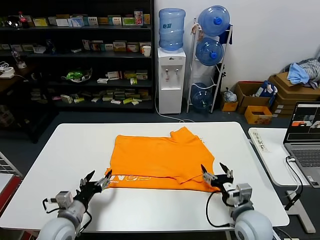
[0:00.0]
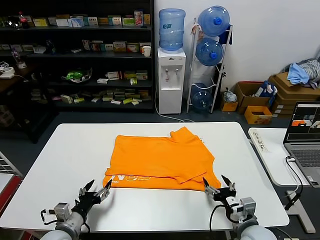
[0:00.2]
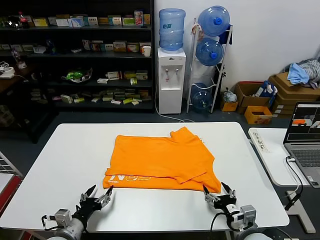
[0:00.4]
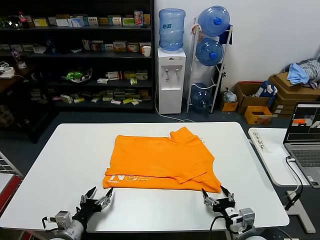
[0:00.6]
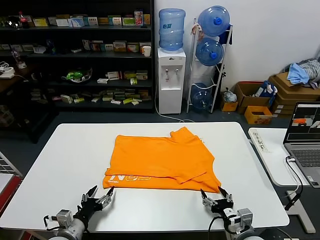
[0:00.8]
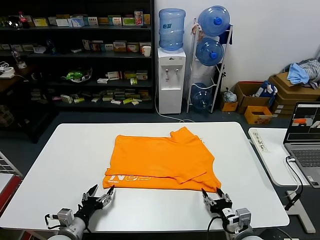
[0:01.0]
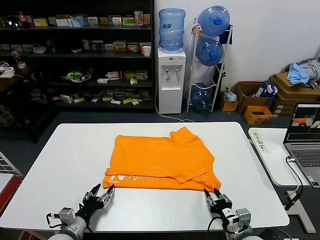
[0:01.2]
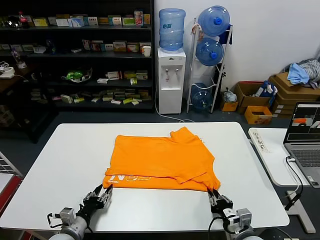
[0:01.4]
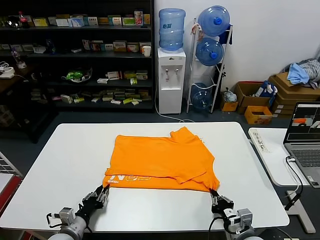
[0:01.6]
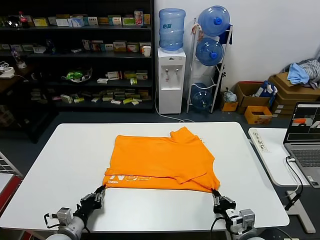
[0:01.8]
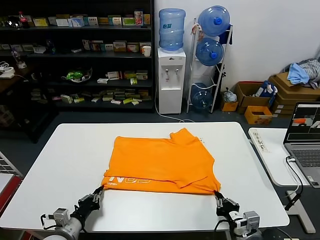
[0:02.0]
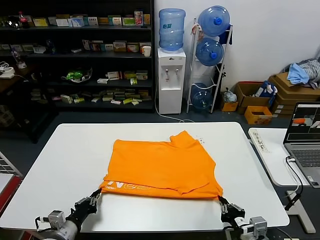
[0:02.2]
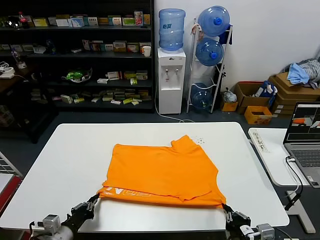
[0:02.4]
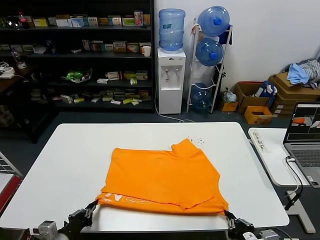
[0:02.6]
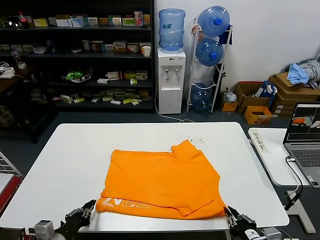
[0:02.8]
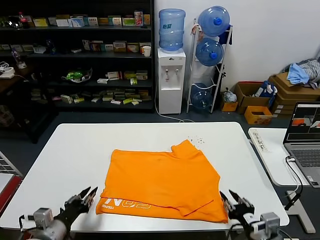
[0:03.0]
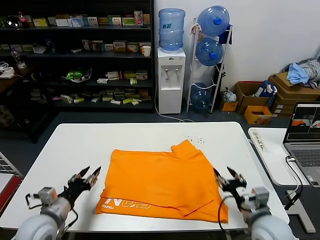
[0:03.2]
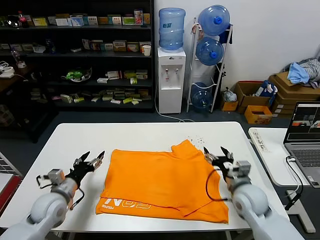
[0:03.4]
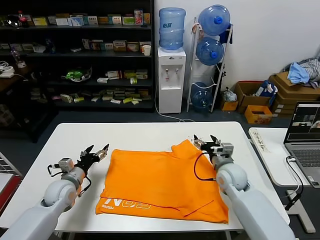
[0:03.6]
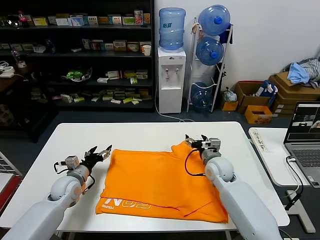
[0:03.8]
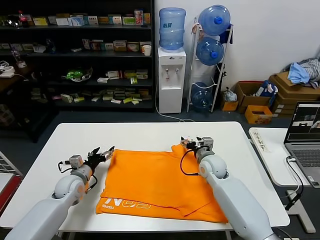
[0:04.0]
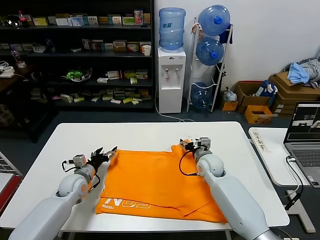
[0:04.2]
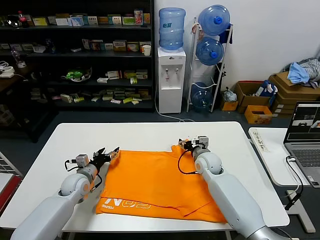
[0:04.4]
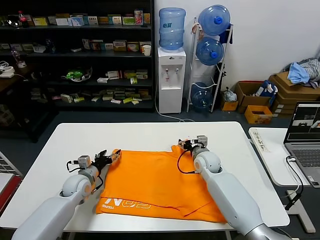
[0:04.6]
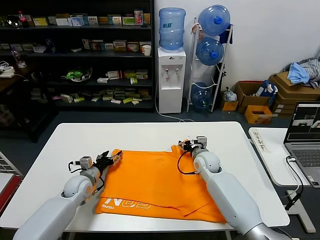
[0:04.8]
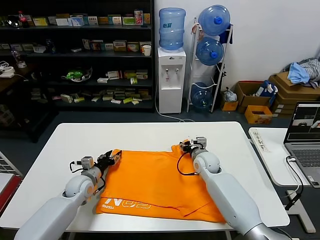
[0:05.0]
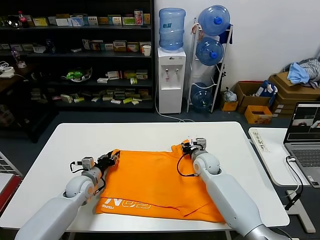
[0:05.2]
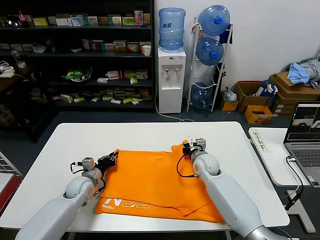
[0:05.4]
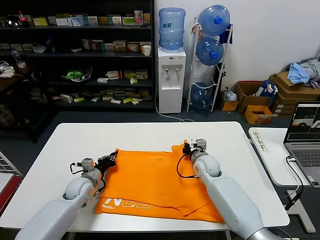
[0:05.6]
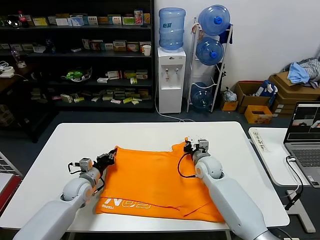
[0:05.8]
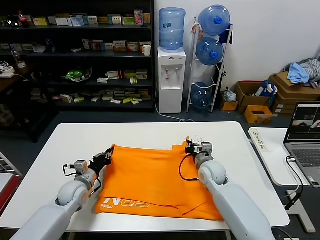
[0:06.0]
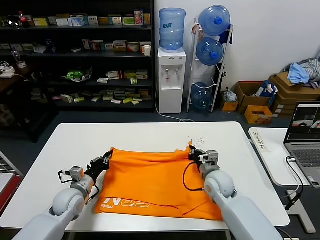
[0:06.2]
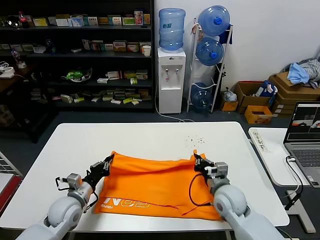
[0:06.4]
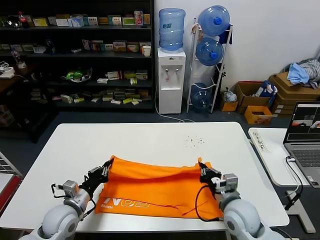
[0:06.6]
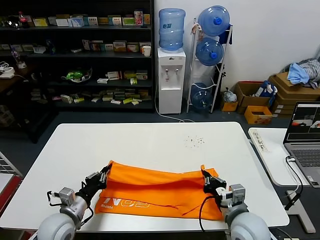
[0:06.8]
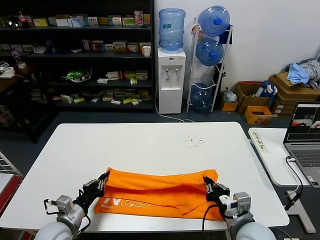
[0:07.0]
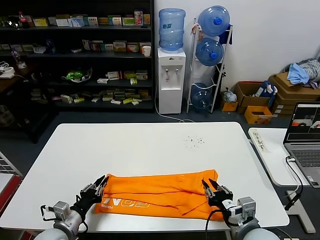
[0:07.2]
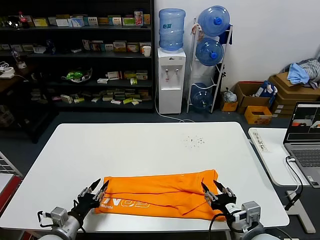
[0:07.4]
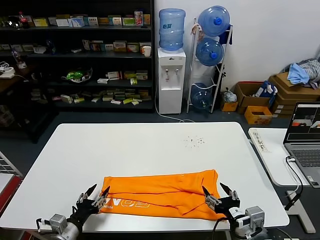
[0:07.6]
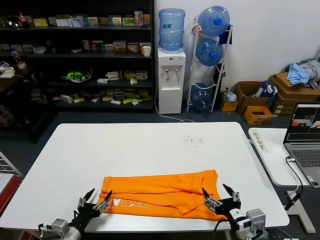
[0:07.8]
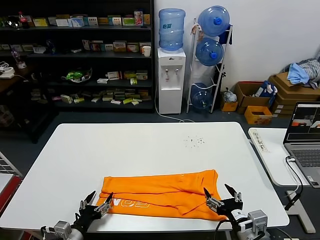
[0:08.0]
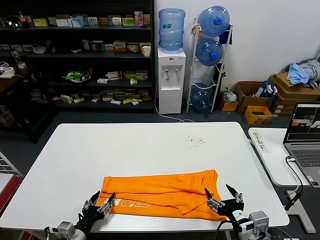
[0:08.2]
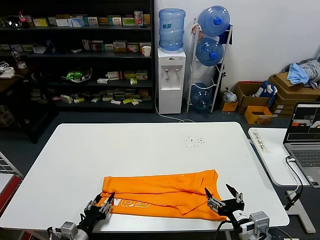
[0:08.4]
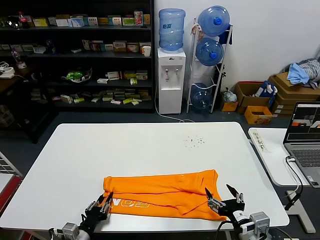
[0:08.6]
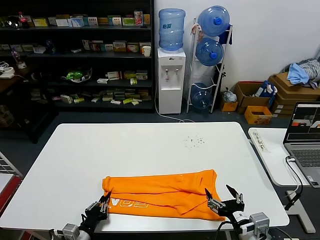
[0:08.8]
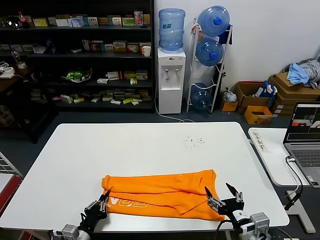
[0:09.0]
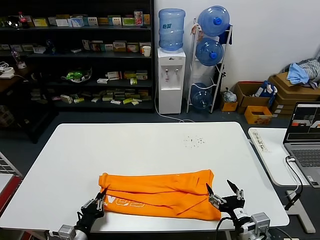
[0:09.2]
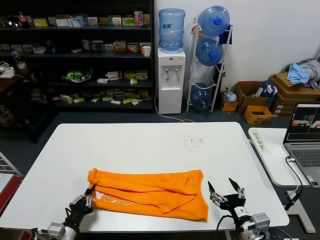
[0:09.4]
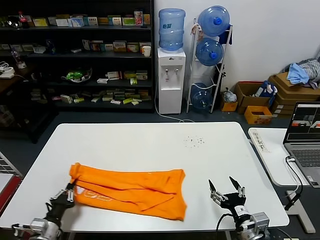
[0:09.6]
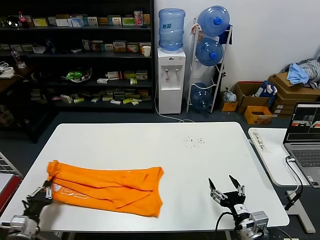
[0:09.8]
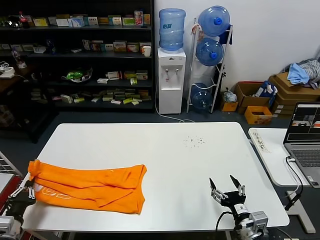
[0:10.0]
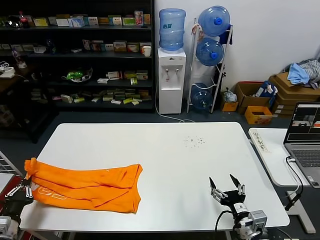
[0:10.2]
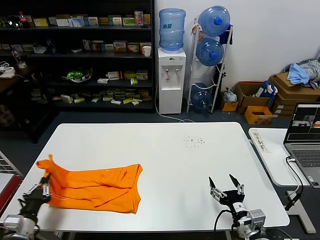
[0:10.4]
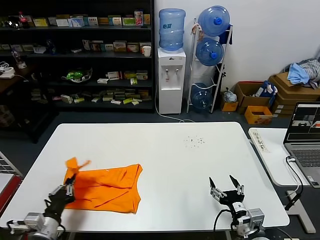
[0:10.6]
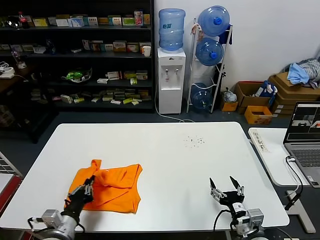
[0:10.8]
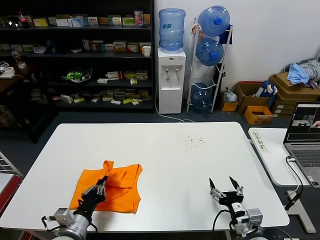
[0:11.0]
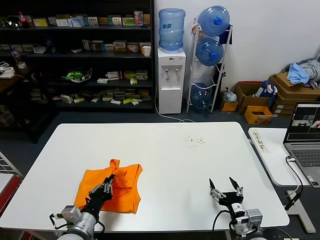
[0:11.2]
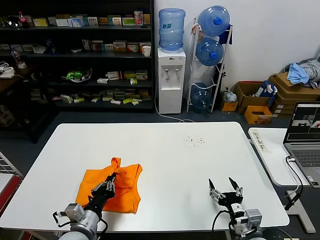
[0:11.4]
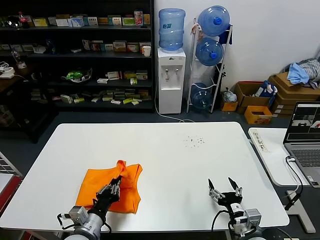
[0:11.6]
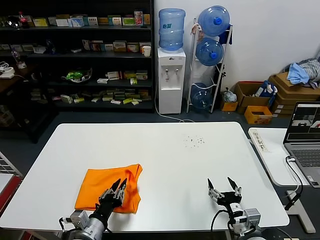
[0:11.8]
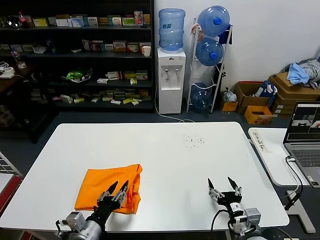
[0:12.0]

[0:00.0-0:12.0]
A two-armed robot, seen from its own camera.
Task of the whole recording: fold and organize the clothes.
Step, 0:00.0 to 0:02.8: Drag the clothes downward with both gripper.
Step, 0:03.0 to 0:05.6: use both grippers simultaneously to clamp the upper edge of the clothing fabric.
Step, 0:05.8 to 0:07.2: use both grippers to drag the upper edge of the fabric backward and fold it over the lower edge.
Step, 0:07.4 to 0:08.8: use the left gripper to clamp the left edge of the fabric.
Step, 0:09.0 to 0:12.0: use the left gripper to drag the left edge of the fabric to the left and folds it over the right edge.
0:00.0 to 0:01.6: The left gripper shifts roughly 5 cm downward, and closes; the right gripper changes place by approximately 5 cm, and closes up.
0:01.6 to 0:03.0: The two grippers go some 10 cm upward. The right gripper opens its fingers.
0:03.0 to 0:04.4: The two grippers go roughly 25 cm forward. The right gripper opens up. Meanwhile the left gripper opens its fingers.
0:04.4 to 0:06.0: The right gripper shifts by approximately 5 cm, and closes up. Meanwhile the left gripper closes its fingers.
0:06.0 to 0:07.6: Both grippers move backward, roughly 25 cm. The right gripper opens its fingers. The left gripper opens up.
0:07.6 to 0:09.0: The left gripper changes place by roughly 5 cm, and closes.
0:09.0 to 0:10.4: The right gripper is displaced downward by about 5 cm. The left gripper moves to the left and upward, roughly 15 cm.
0:10.4 to 0:12.0: The left gripper goes roughly 20 cm to the right, and opens.

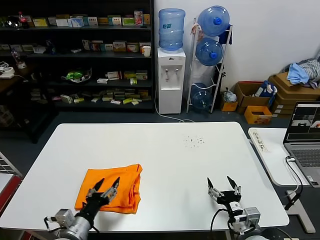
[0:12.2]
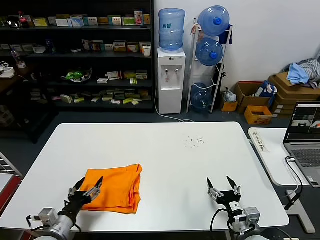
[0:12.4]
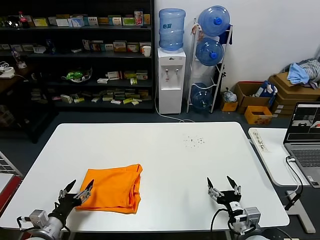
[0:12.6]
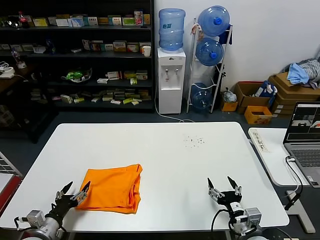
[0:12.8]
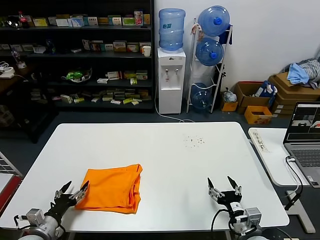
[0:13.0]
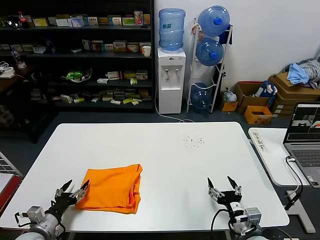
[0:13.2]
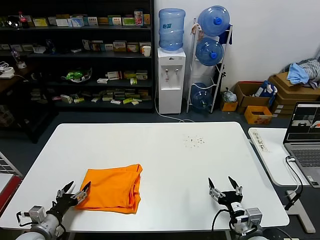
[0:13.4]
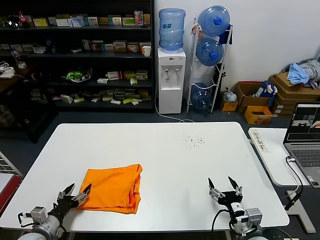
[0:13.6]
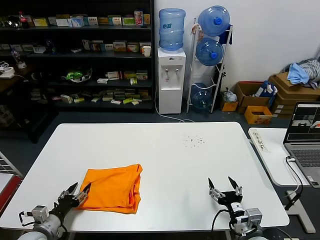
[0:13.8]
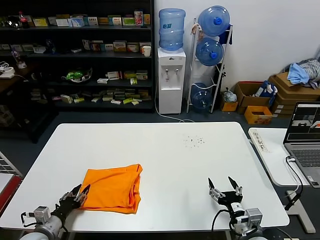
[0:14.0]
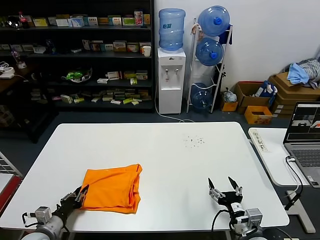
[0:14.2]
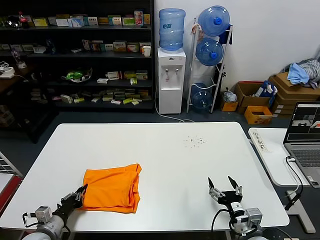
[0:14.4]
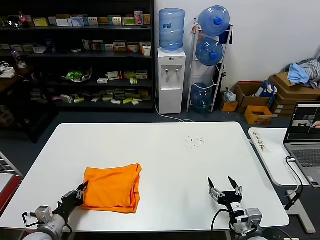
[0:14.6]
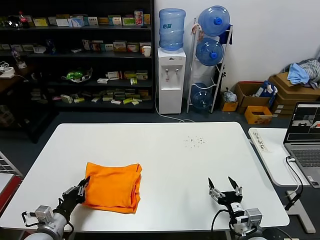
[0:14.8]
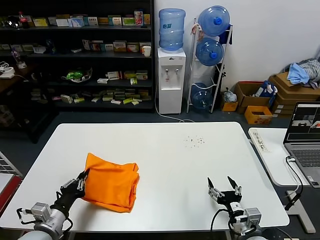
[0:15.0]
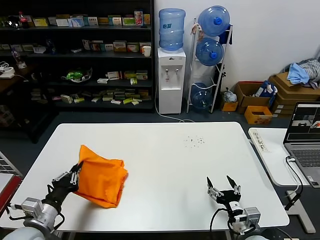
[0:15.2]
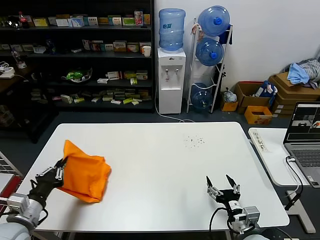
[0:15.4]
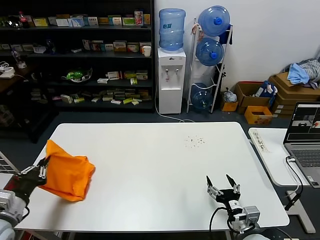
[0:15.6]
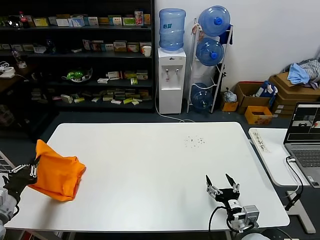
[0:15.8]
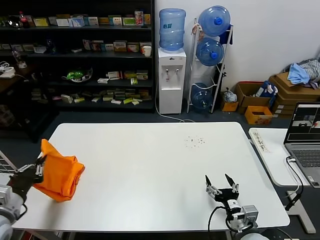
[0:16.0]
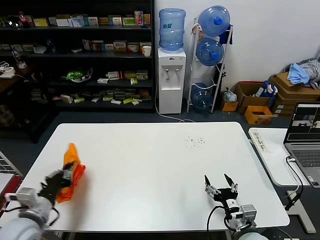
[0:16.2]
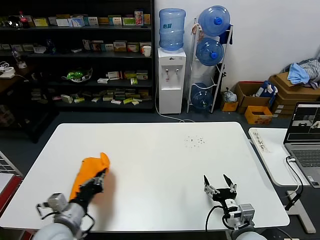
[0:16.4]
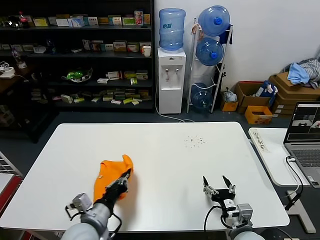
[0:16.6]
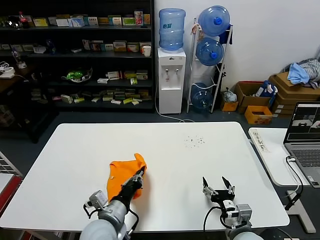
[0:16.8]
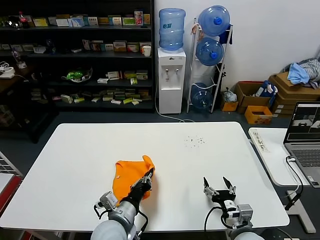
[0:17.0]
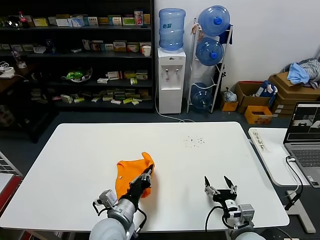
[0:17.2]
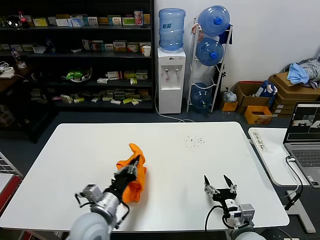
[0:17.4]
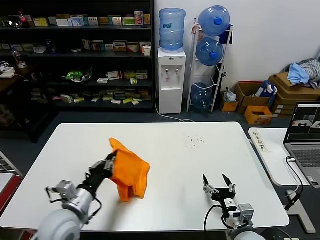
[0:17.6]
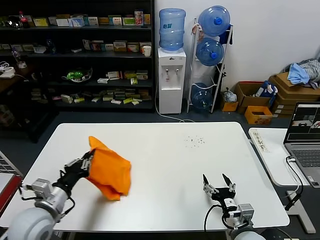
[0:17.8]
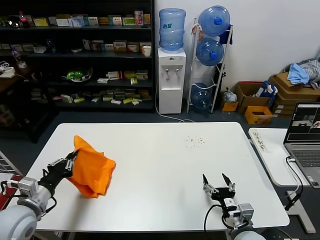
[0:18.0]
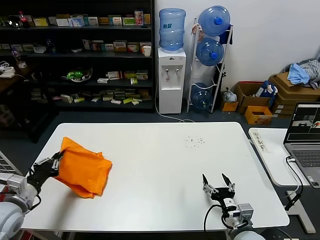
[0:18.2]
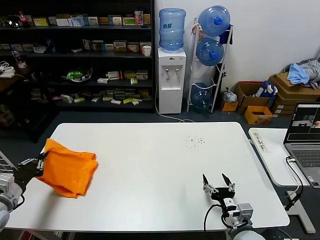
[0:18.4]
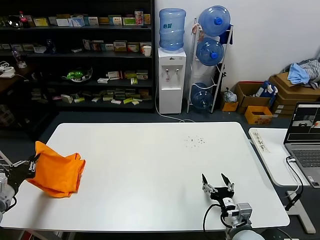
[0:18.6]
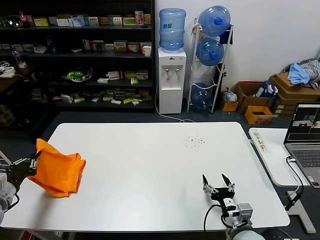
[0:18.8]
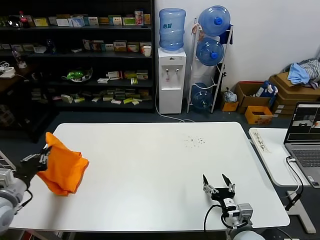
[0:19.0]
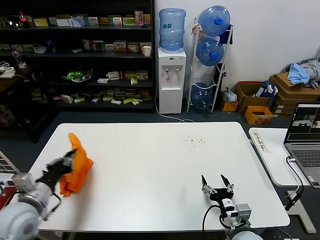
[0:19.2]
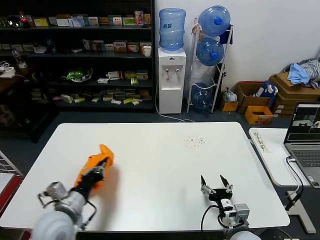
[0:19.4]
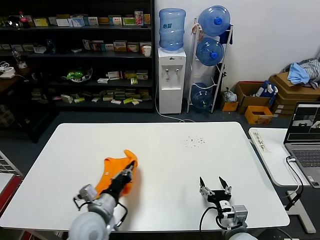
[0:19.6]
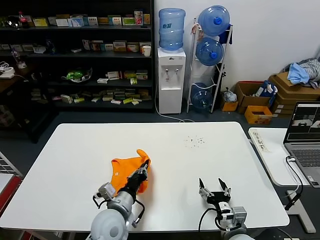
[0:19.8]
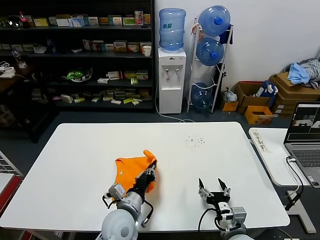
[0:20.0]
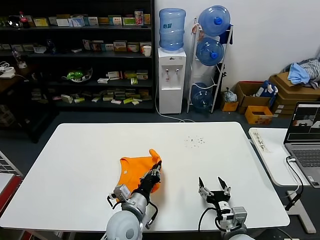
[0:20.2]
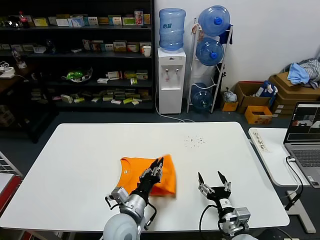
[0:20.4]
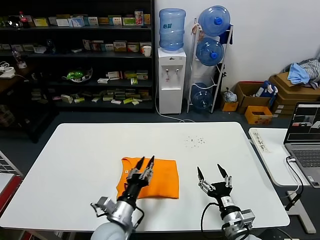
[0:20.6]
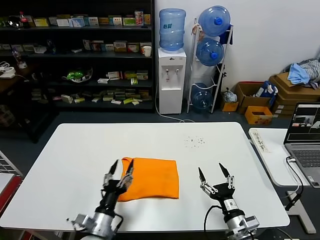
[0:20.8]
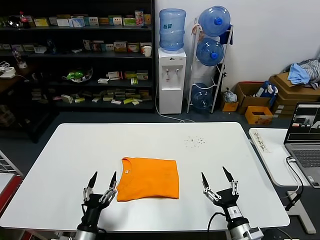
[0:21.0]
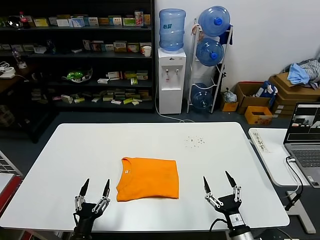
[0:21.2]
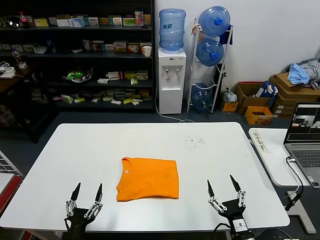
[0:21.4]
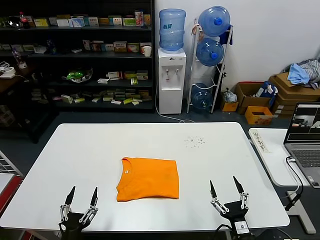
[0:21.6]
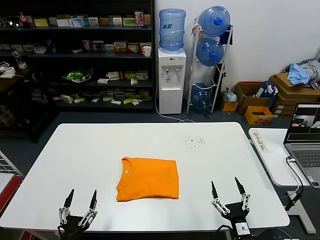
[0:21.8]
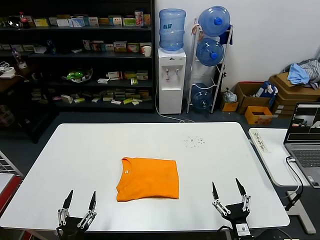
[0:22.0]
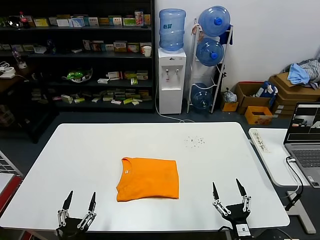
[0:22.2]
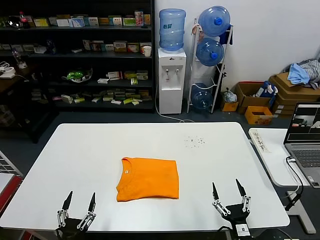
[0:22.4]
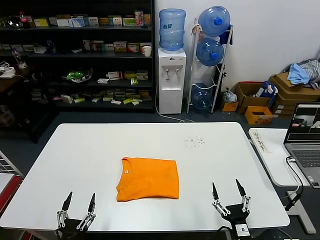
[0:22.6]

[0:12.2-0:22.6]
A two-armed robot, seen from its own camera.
Task of the whole recording: fold and organize the clothes.
Step, 0:12.2 to 0:20.6: Flip the folded clothes over with left gripper.
0:12.2 to 0:13.6: The left gripper shifts roughly 15 cm to the left and downward.
0:13.6 to 0:15.2: The left gripper moves upward and to the right, some 10 cm, and closes its fingers.
0:15.2 to 0:16.6: The left gripper heads to the right, covering roughly 10 cm.
0:16.6 to 0:18.2: The left gripper travels to the left by approximately 20 cm.
0:18.2 to 0:19.6: The left gripper heads to the right, covering some 20 cm.
0:19.6 to 0:21.2: The left gripper goes approximately 15 cm downward and backward, moves approximately 10 cm to the right and comes back, and opens its fingers, while the right gripper shifts by some 5 cm.
0:21.2 to 0:22.6: The left gripper moves backward, approximately 5 cm.
